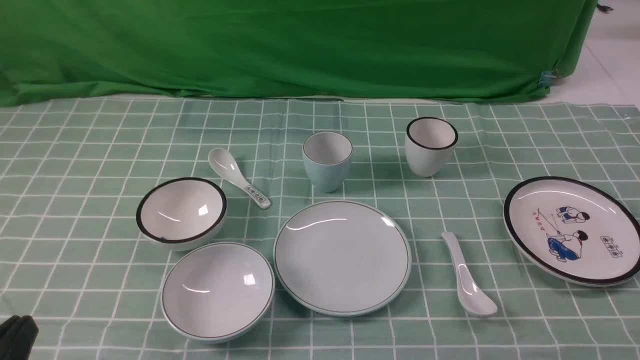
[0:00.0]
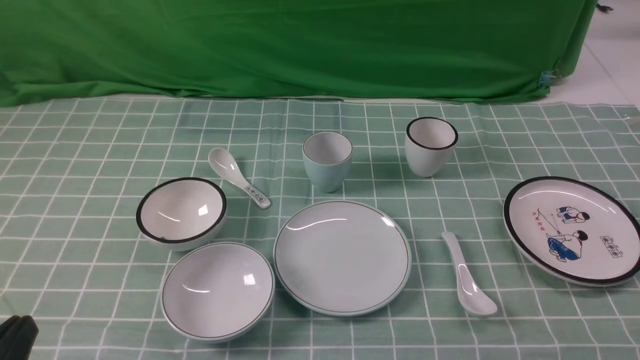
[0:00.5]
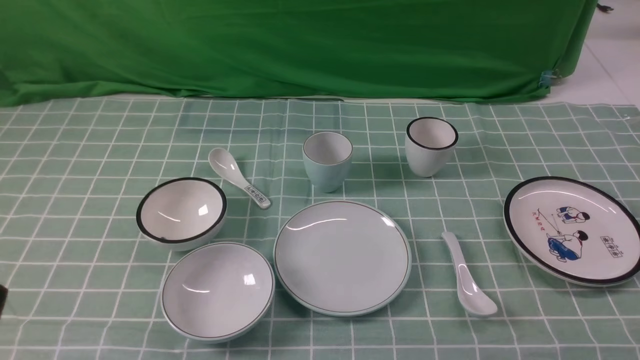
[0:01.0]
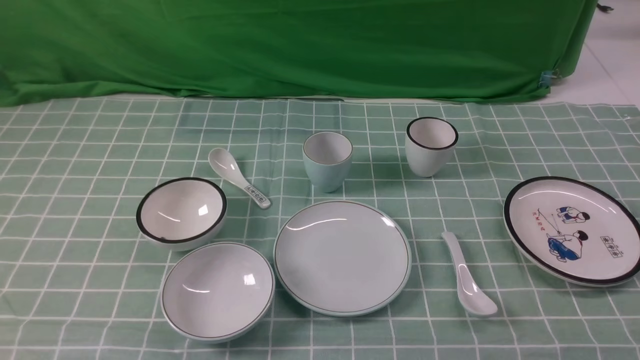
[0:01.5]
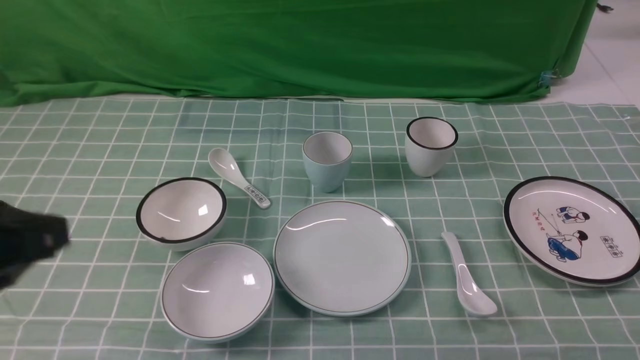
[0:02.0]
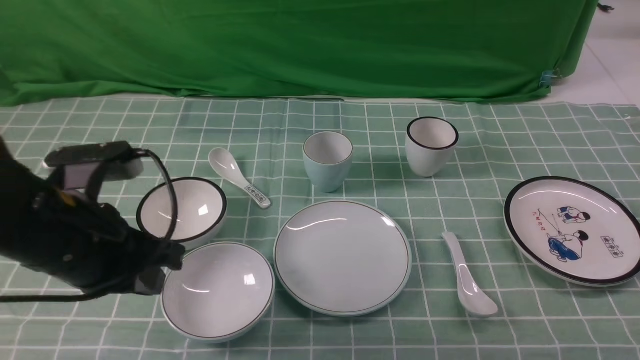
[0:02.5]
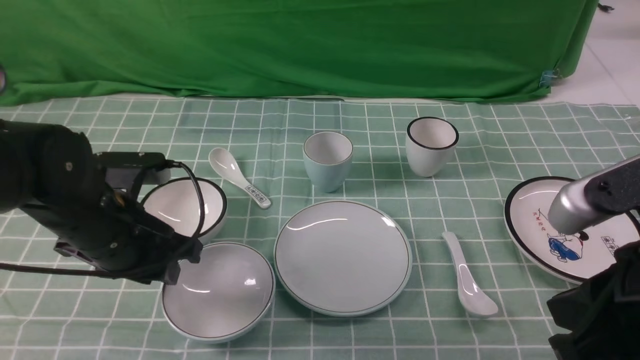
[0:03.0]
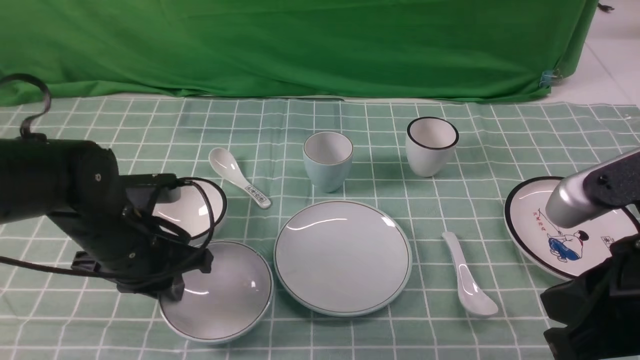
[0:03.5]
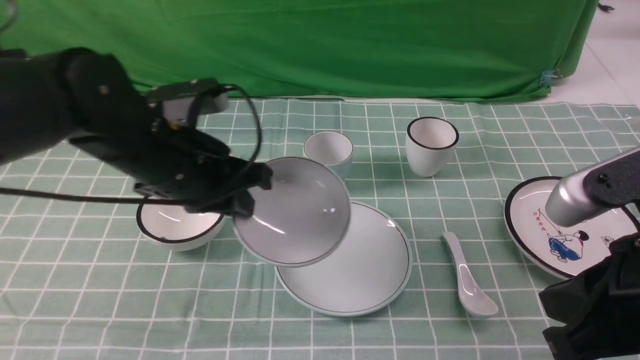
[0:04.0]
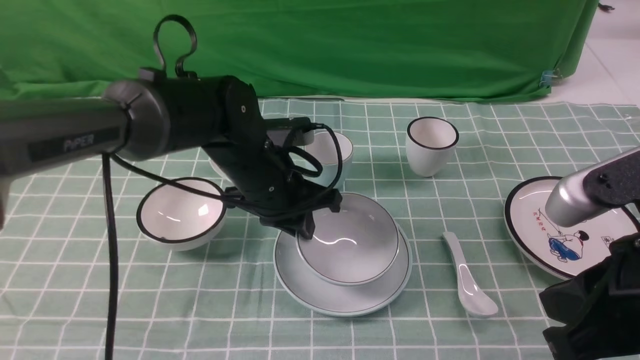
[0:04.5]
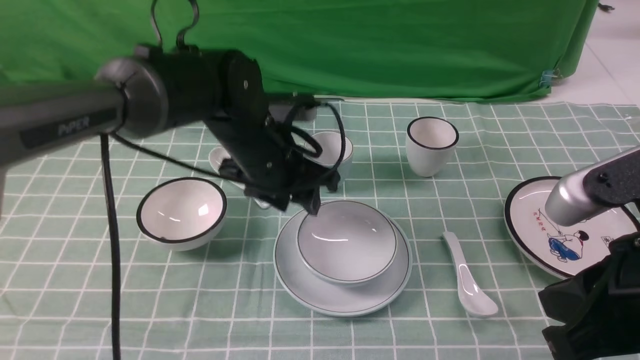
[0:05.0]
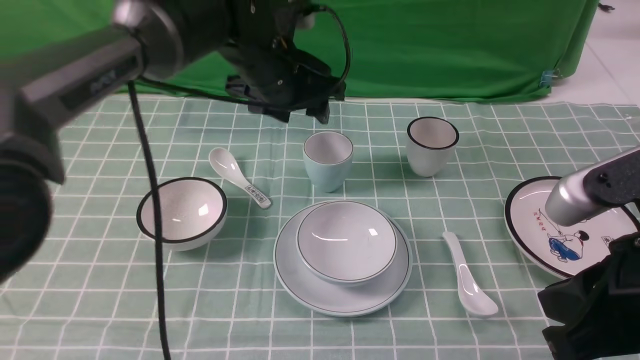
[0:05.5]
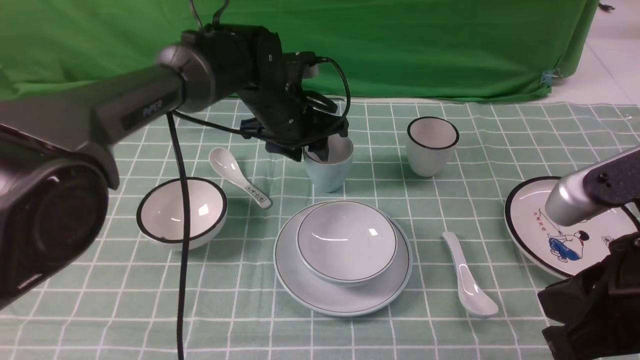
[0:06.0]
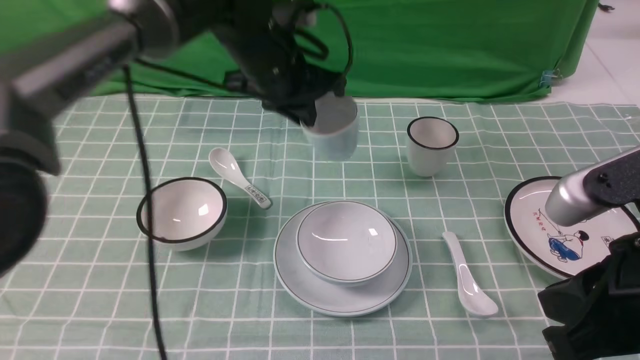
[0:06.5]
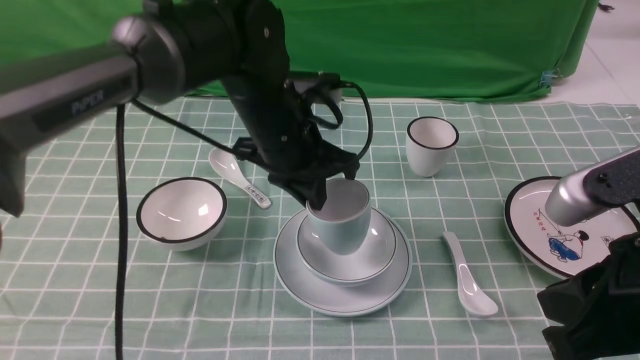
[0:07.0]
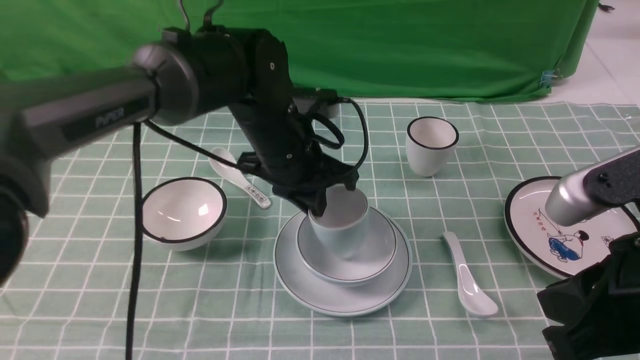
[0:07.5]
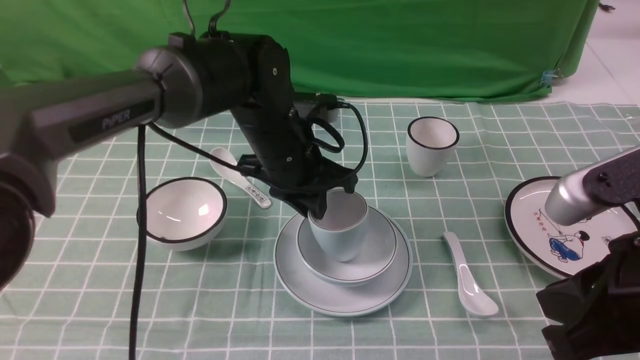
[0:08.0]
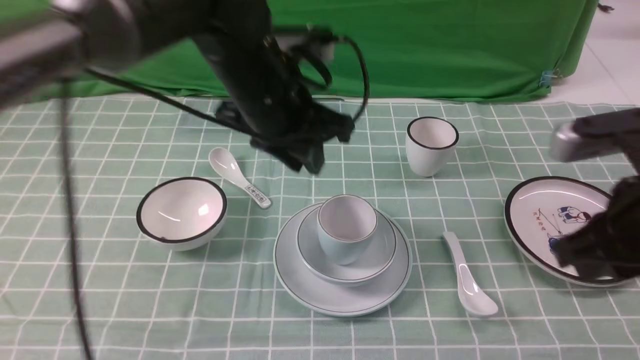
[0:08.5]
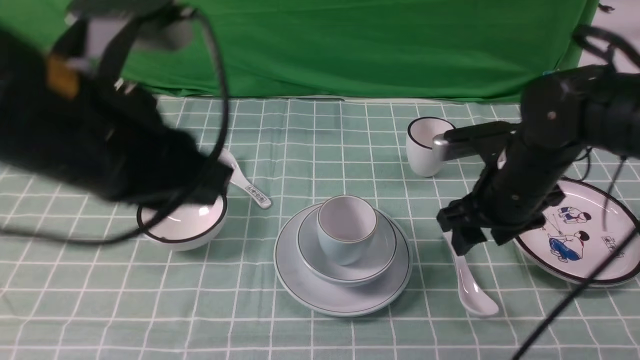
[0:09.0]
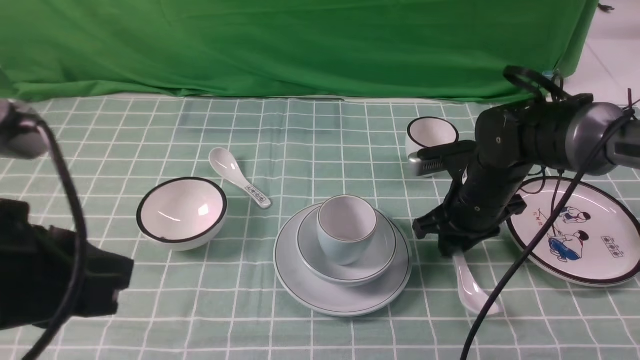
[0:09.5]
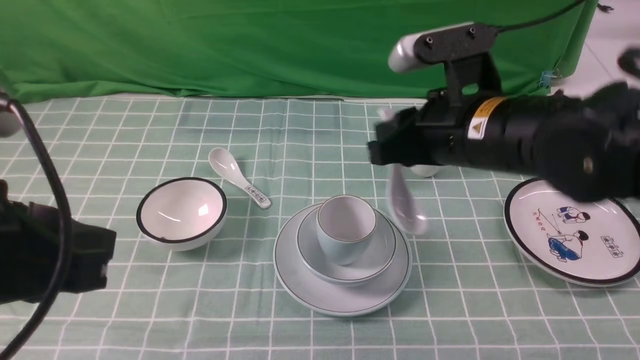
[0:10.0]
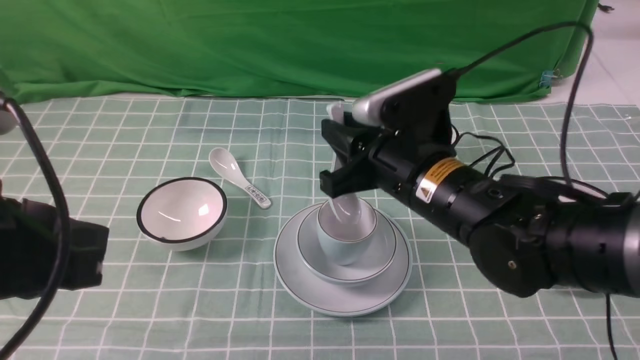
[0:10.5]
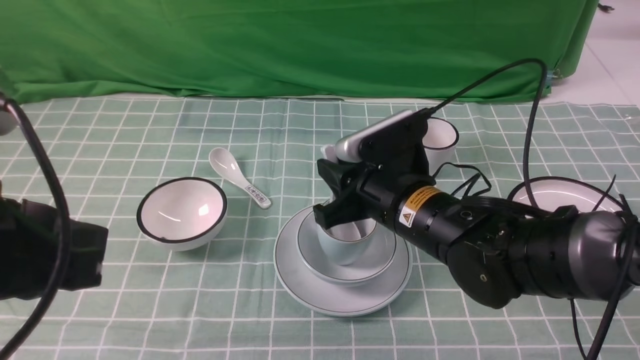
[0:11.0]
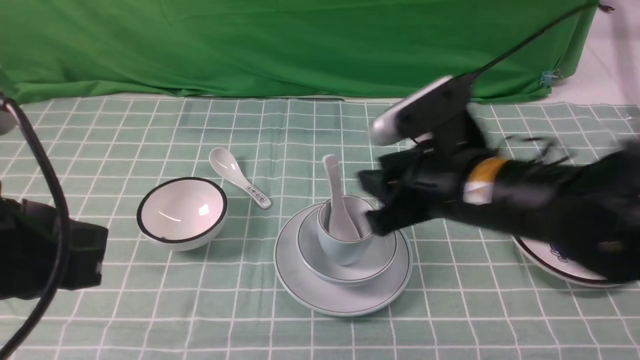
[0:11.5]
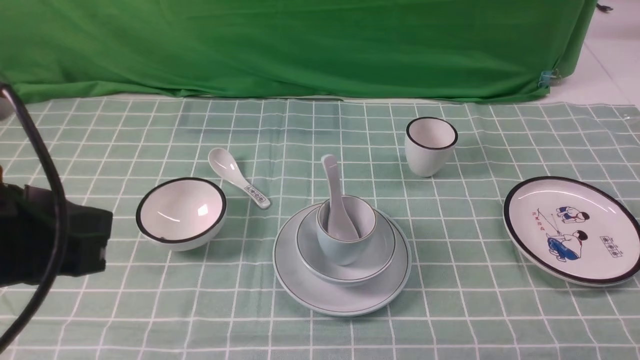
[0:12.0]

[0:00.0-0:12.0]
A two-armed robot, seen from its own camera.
Task of the whole recording: place the bowls on the plates on the blue tablecloth, put the cups on the bowls, and place the spoons in the cups.
Step, 0:00.0 to 0:03.0: Grasp the bowl with the left gripper.
Step, 0:04.0 to 0:04.5: Place the bowl on the plate with the left gripper.
Step, 0:05.0 to 0:06.0: Grasp the cup with the left gripper.
Step, 0:06.5 to 0:08.0: Place the cup on the bowl with the left gripper.
Step, 0:08.5 to 0:09.5: Grasp the spoon with the right gripper.
Step, 0:10.0 to 0:11.0: Place the spoon on the cup with the right gripper.
0:02.0 to 0:04.0: The left gripper goes approximately 25 cm forward, downward and to the right, and opens, then closes once more. Meanwhile the right gripper is displaced to the left and forward by approximately 15 cm.
0:04.0 to 0:06.0: The left gripper heads forward and to the right, covering approximately 20 cm, and opens up.
0:06.0 to 0:08.0: The left gripper shifts approximately 10 cm backward, and closes up.
0:08.0 to 0:10.0: The left gripper travels backward, to the left and upward by approximately 35 cm, while the right gripper goes some 20 cm forward, and opens and closes again.
0:10.0 to 0:12.0: The right gripper heads backward, to the right and upward, covering approximately 30 cm, and closes.

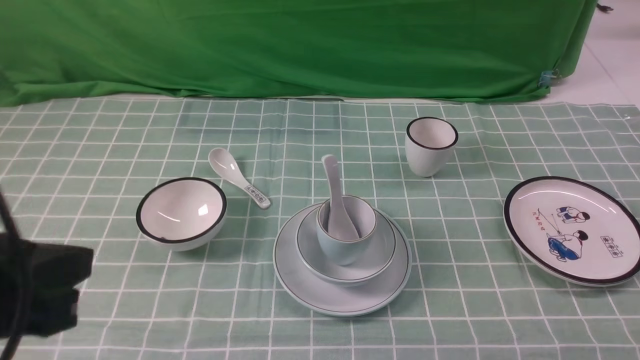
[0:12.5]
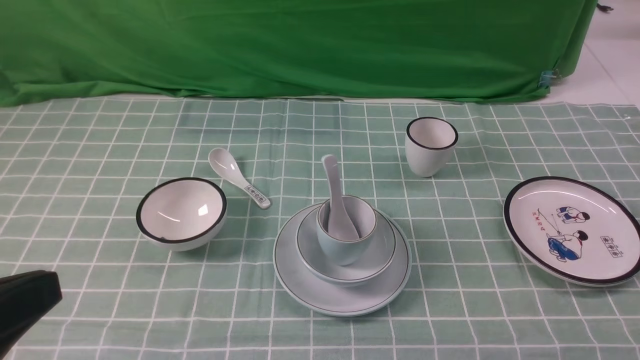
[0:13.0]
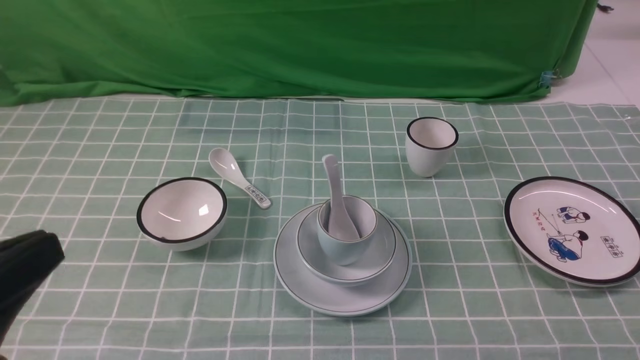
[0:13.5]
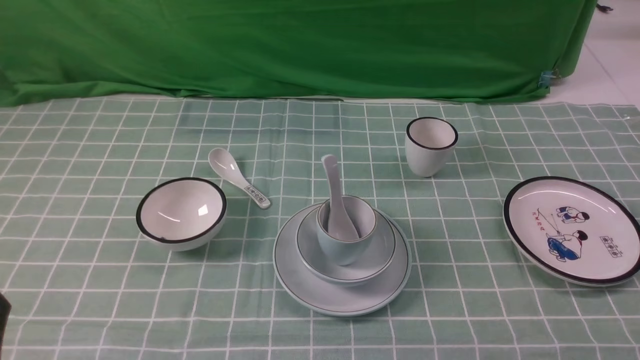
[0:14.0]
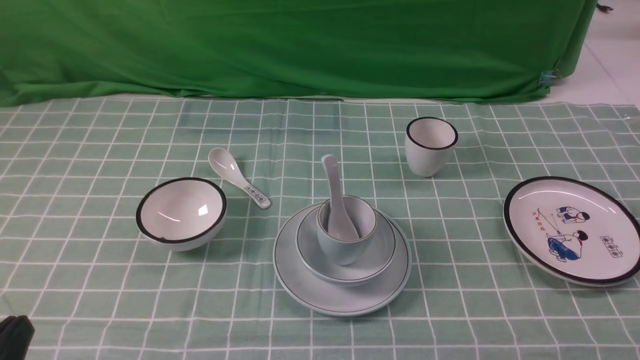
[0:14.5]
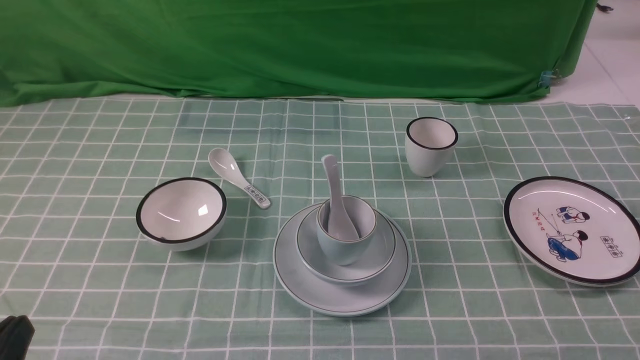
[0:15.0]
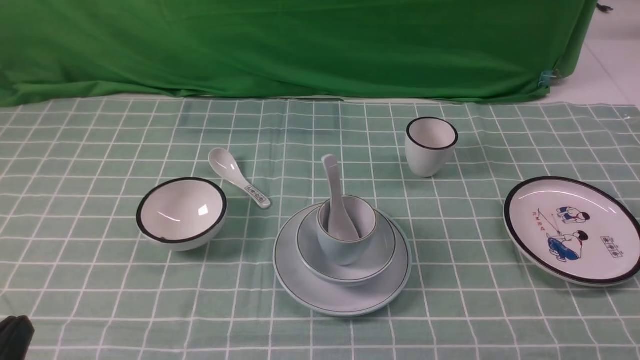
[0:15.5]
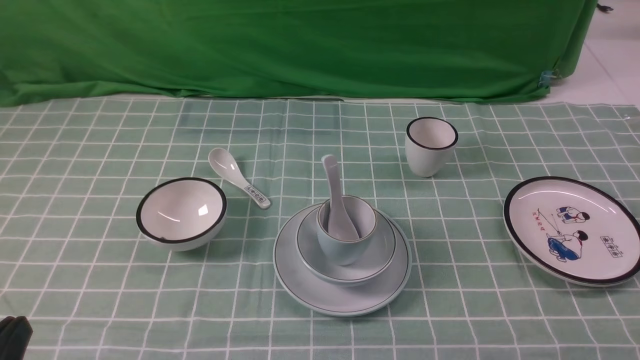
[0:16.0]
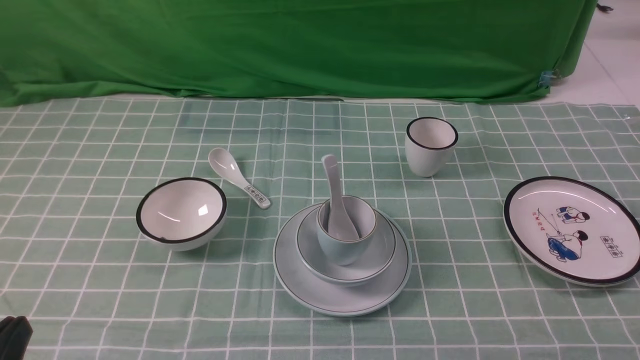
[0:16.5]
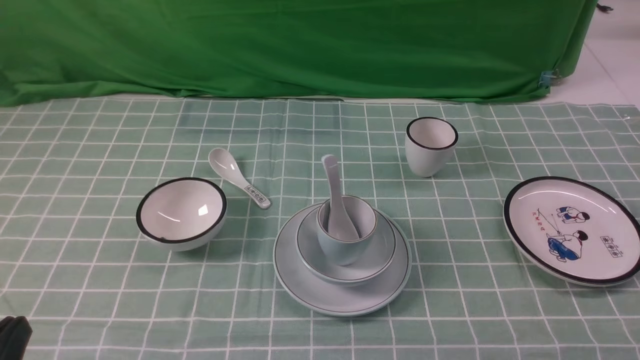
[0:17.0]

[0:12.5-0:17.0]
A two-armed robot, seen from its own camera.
Task of the whole recording: place the bowls on the plates on the blue tablecloth, put the cups on the bowls, and place the spoons in the cups.
0:12.5 to 0:14.5: The left gripper goes some 15 cm downward.
